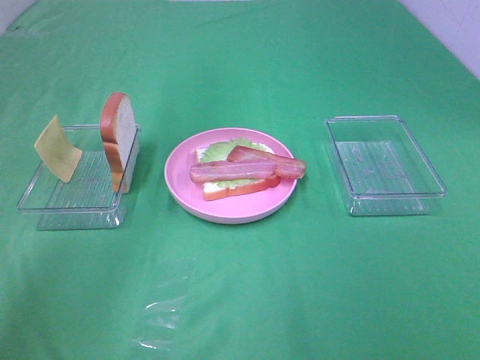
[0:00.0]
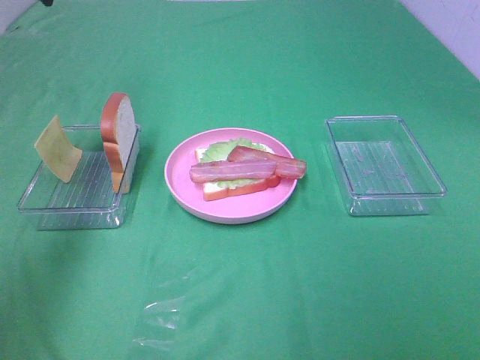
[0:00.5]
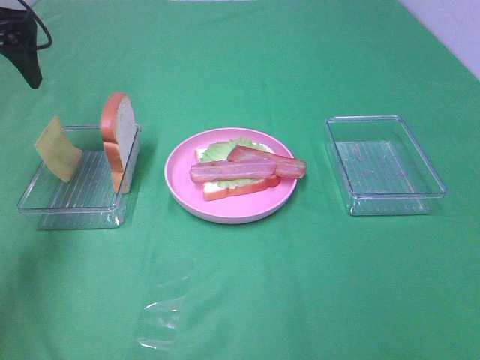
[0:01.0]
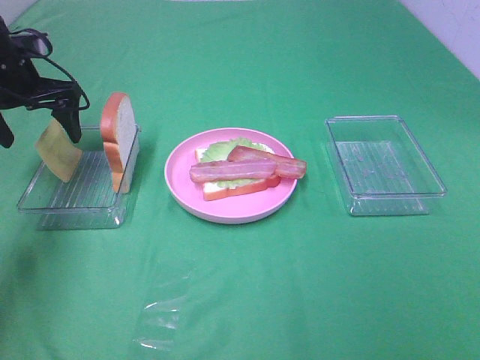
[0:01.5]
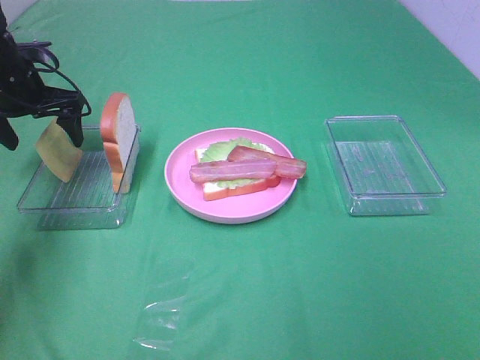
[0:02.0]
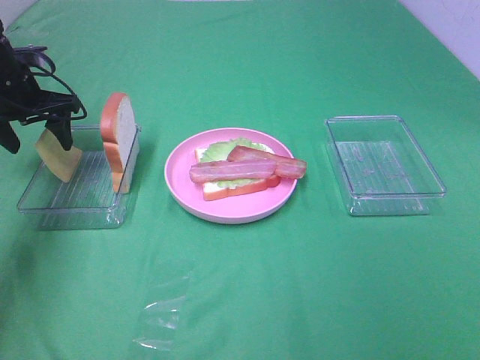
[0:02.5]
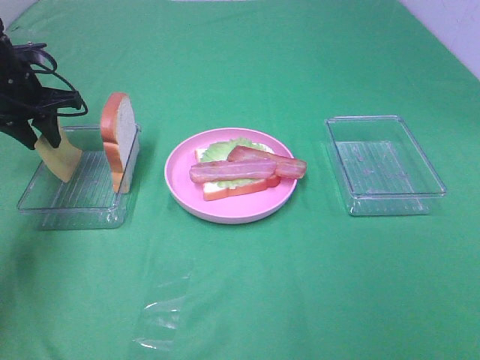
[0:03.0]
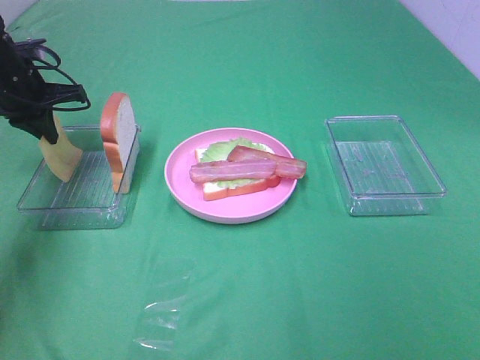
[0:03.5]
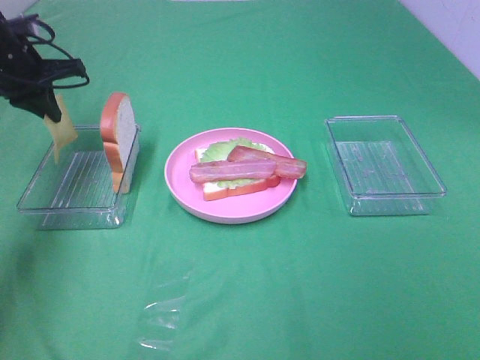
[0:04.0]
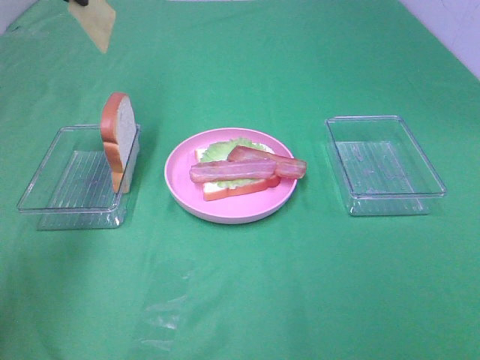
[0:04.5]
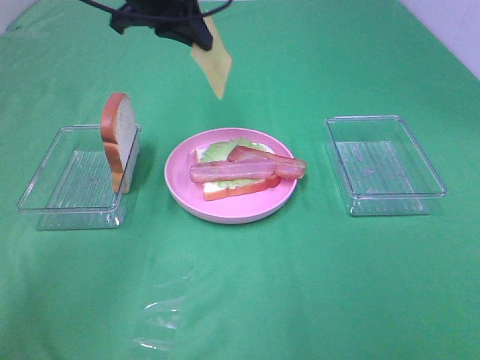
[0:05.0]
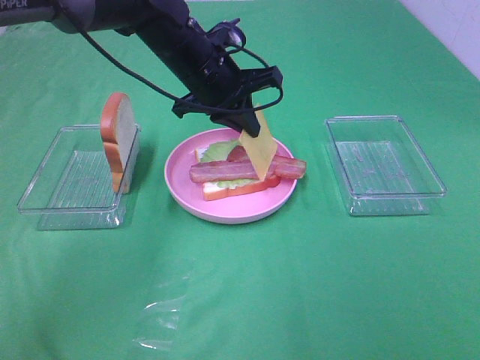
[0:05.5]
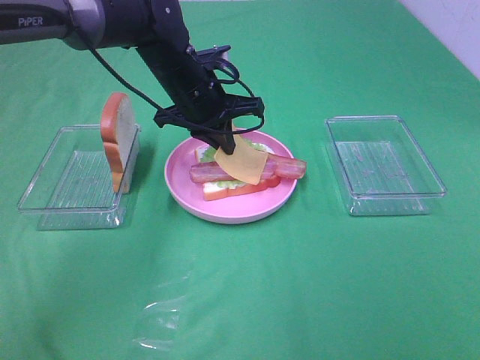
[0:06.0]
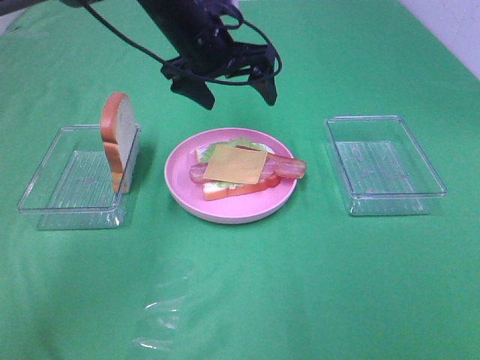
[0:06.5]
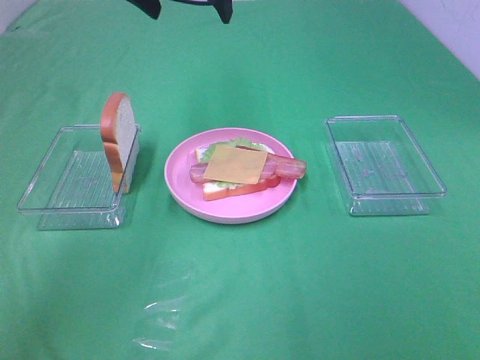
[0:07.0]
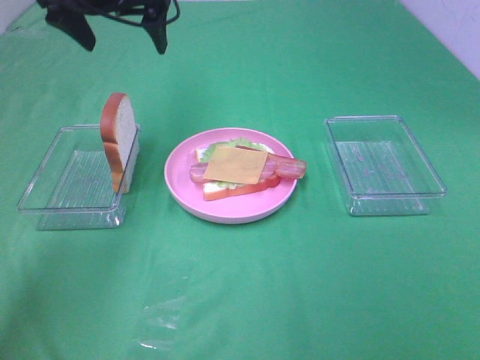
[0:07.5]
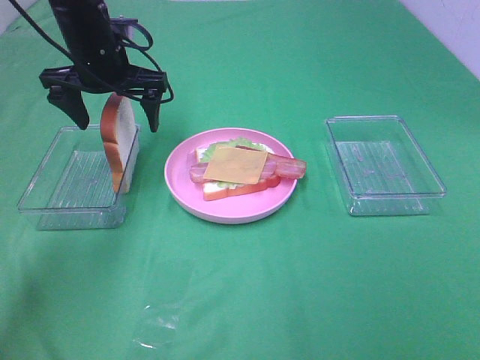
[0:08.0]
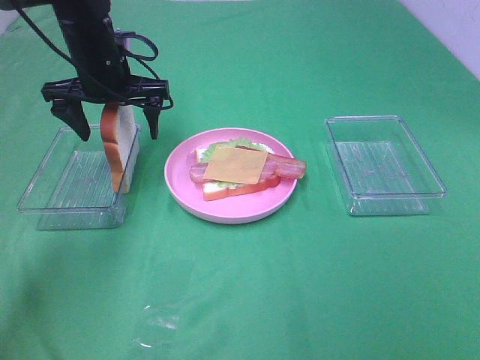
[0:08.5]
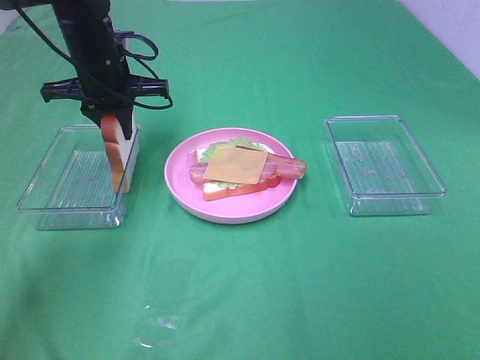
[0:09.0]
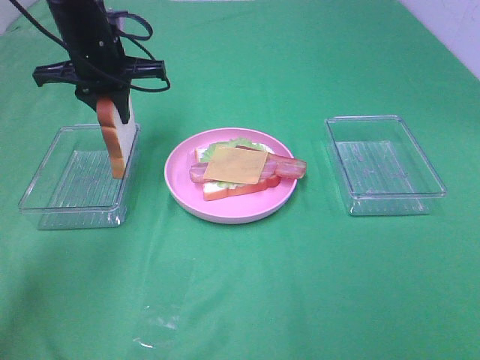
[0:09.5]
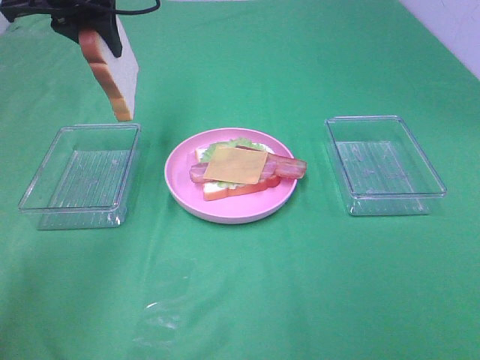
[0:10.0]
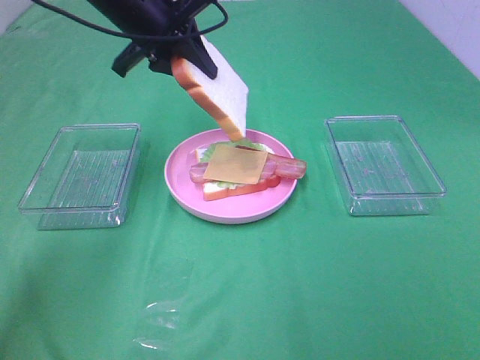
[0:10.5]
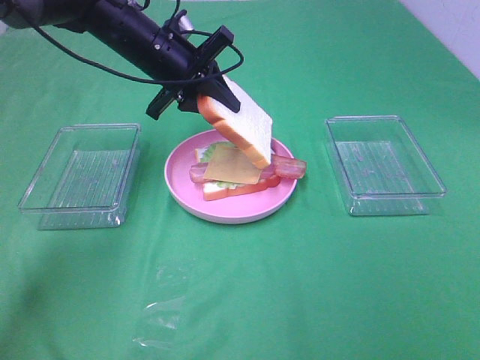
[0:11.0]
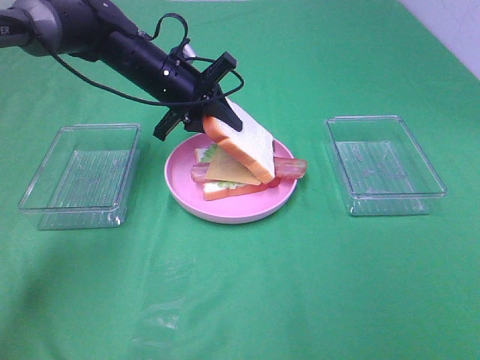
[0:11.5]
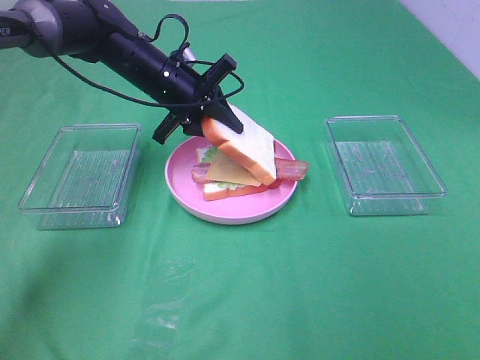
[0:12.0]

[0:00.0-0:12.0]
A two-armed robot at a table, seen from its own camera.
Task of the whole recording: Make sandwiches.
Step, 0:00.0 to 0:03.5: Left hand:grab the cheese slice.
Step, 0:04.0 to 0:06.0: Left hand:place the cheese slice on top of the bacon.
Step, 0:06.5 to 0:09.0: Left hand:grab the bread slice.
0:00.0 to 0:02.0: The left gripper shifts approximately 25 cm downward and to the left.
0:02.0 to 0:04.0: The left gripper closes up.
0:04.0 to 0:06.0: The left gripper moves to the right, about 25 cm.
0:06.0 to 0:08.0: The left gripper moves to the left, some 10 cm, travels upward and back again, approximately 15 cm each way, and opens.
0:08.0 to 0:10.0: The left gripper is displaced upward by roughly 10 cm, and closes up.
0:10.0 to 0:12.0: The left gripper travels downward and to the right by approximately 20 cm.

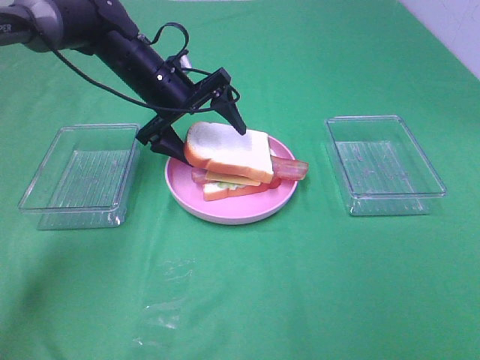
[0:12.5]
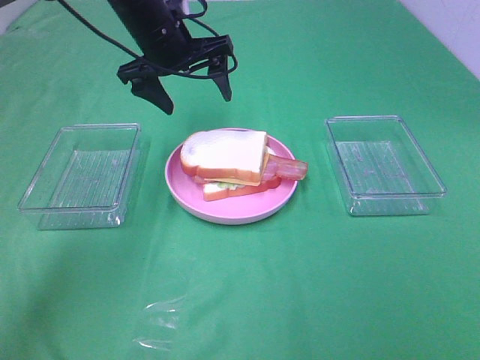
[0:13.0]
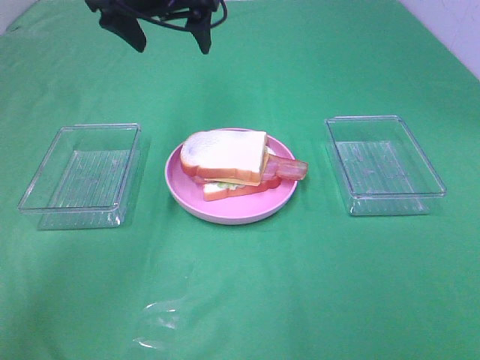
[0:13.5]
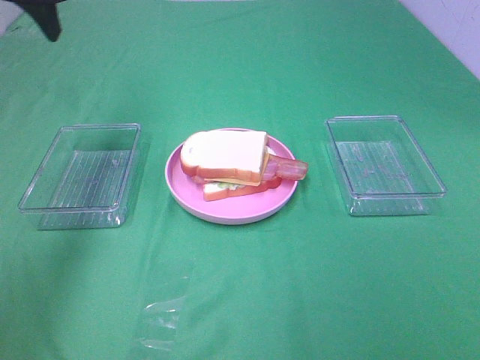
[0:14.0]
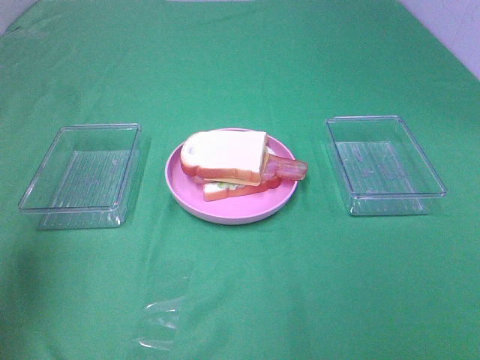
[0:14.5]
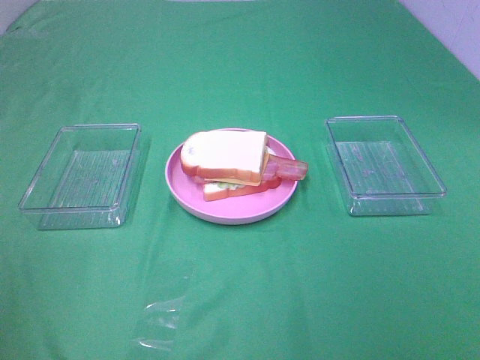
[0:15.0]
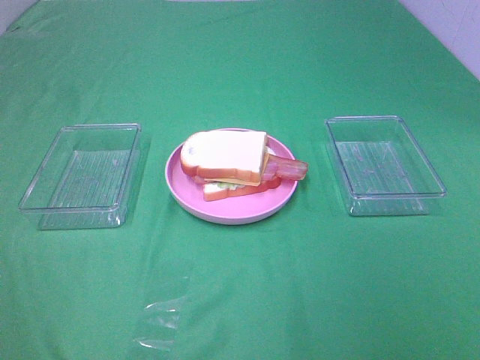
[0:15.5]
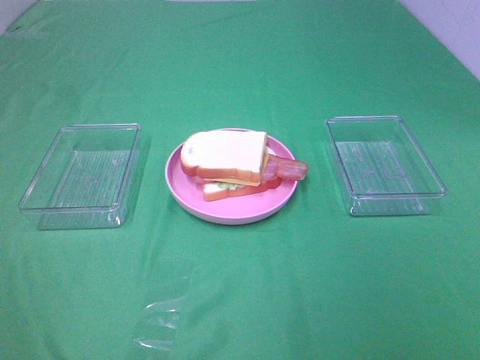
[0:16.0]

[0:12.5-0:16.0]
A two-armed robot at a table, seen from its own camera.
Task of the whole recording: Make sandwiches.
0:12.5 to 0:14.5: The left gripper is displaced backward, upward and to the left by some 40 cm.
0:14.5 to 0:16.0: The left gripper goes approximately 20 cm backward and downward.

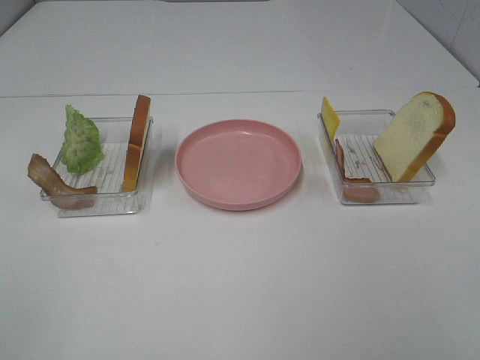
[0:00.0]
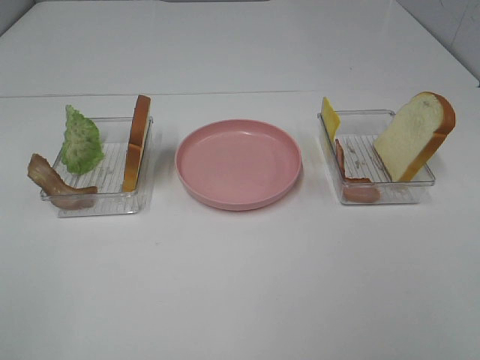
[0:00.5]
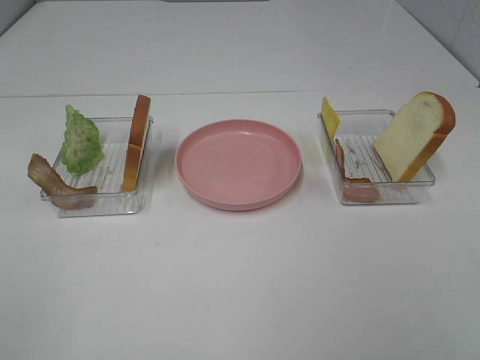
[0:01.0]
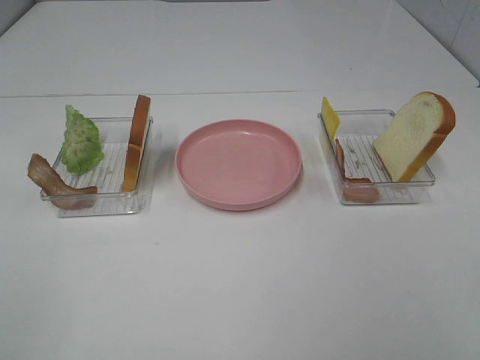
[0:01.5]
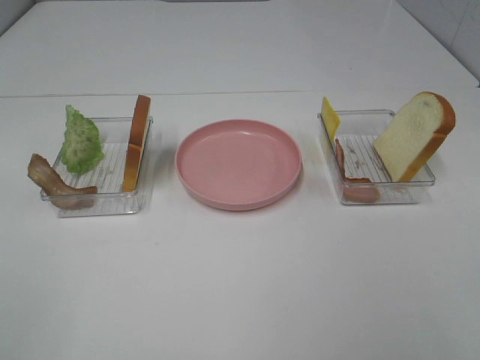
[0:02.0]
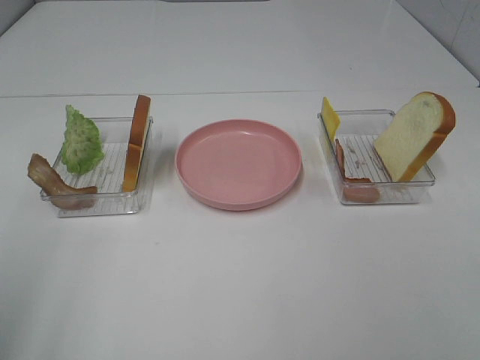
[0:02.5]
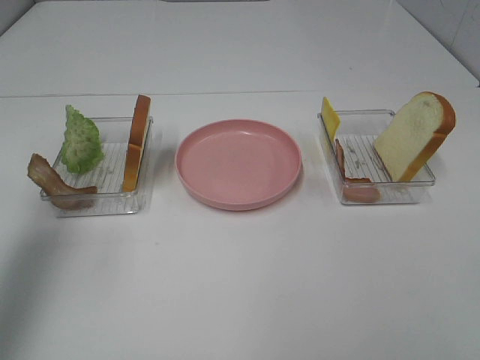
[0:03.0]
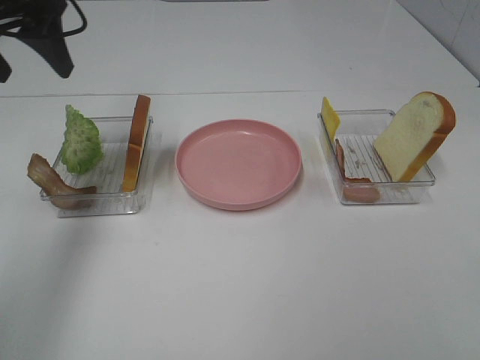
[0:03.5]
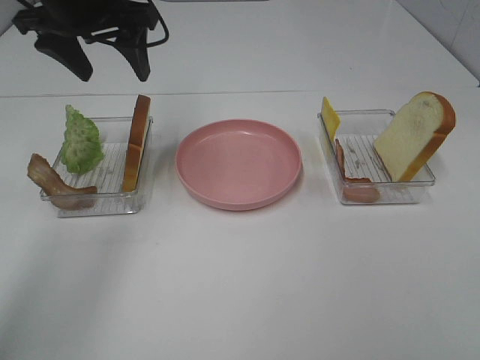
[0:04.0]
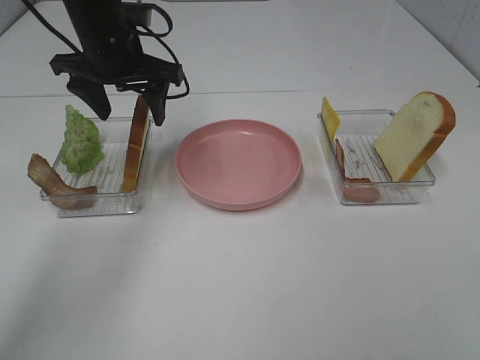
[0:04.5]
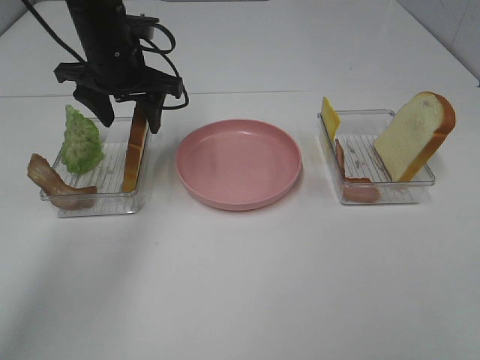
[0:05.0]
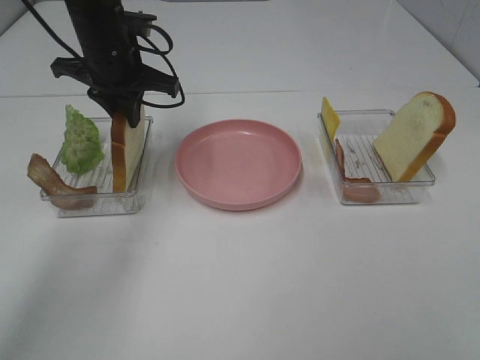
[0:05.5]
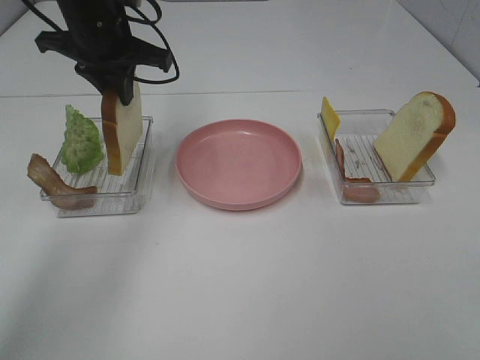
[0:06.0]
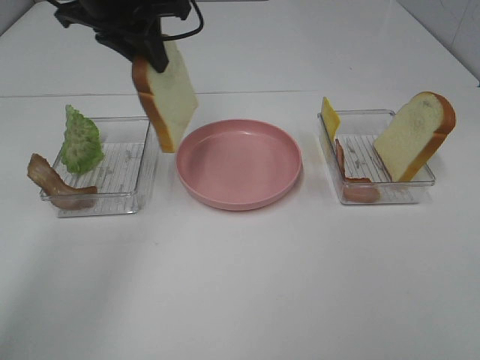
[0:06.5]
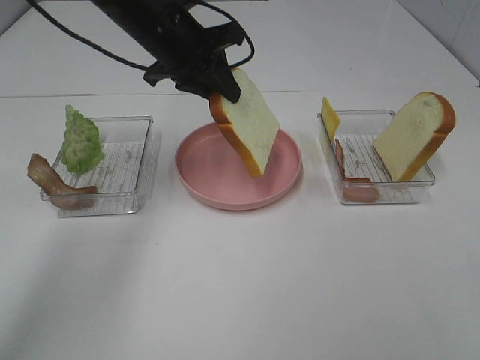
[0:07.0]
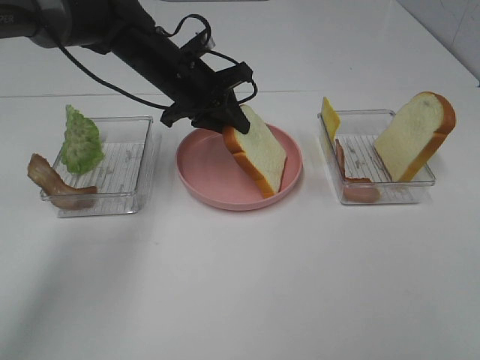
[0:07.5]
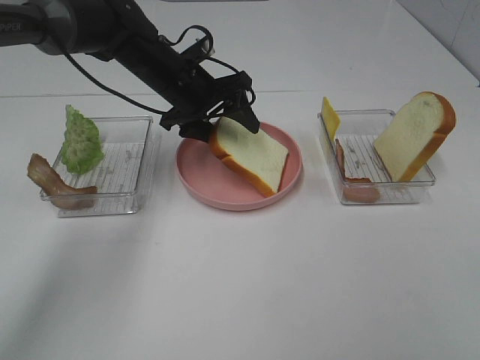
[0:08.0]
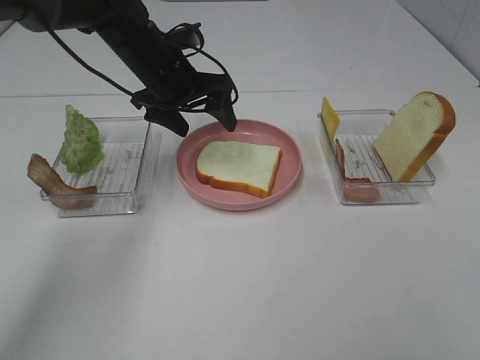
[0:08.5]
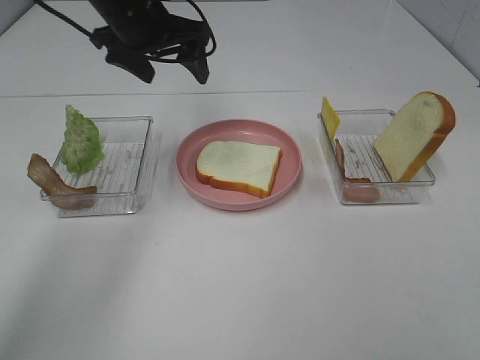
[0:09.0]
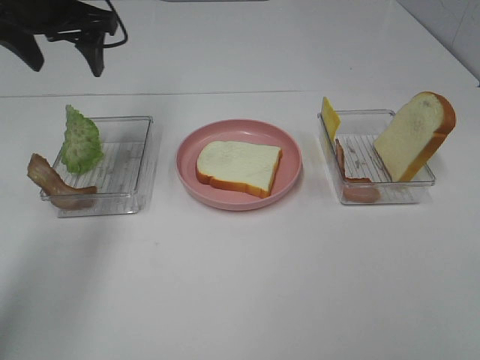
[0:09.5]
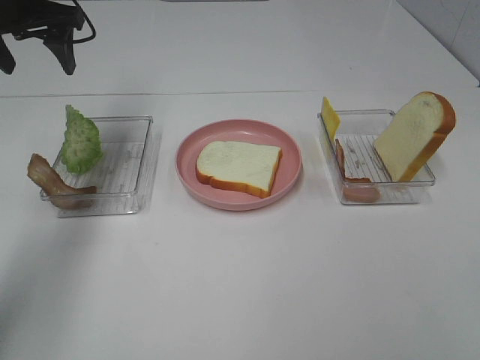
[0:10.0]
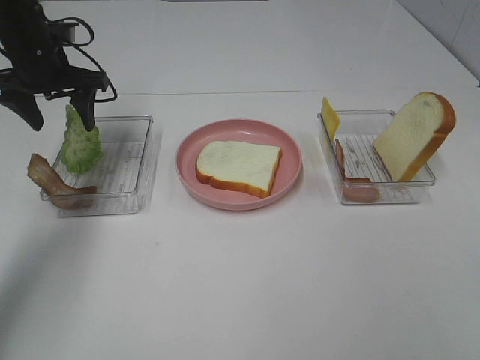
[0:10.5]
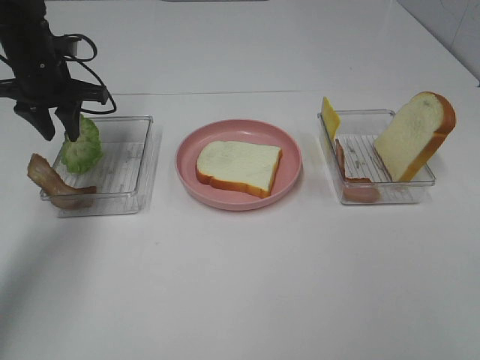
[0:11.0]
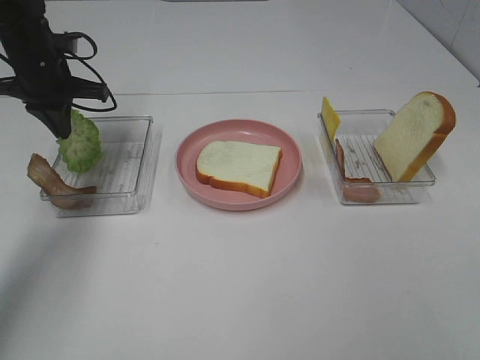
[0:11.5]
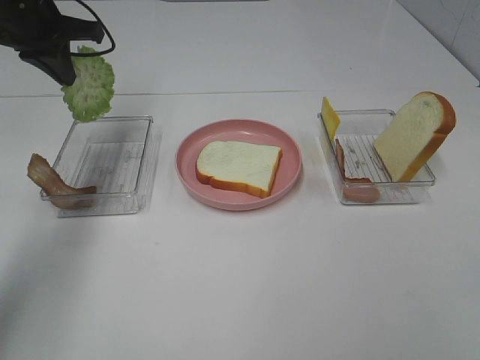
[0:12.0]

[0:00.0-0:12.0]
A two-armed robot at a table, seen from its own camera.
Task of the whole recording: Make sandwiches.
Step, 0:00.0 to 0:05.0: Left hand:grab the bread slice.
Step, 0:05.5 to 0:08.5: Left hand:place the bread slice on the plate.
Step, 0:09.0 to 0:11.5: Left hand:grab the lettuce slice.
0:00.0 to 0:02.0: Neither gripper changes place.
0:02.0 to 0:04.0: The left gripper is displaced forward by about 40 cm.
0:04.0 to 0:06.0: The left gripper closes.
0:06.0 to 0:08.0: The left gripper goes approximately 10 cm downward and to the right, and opens its fingers.
0:08.0 to 0:10.0: The left gripper moves to the left and upward, roughly 20 cm.
0:10.0 to 0:12.0: The left gripper reaches some 10 cm downward, then returns, and closes.
